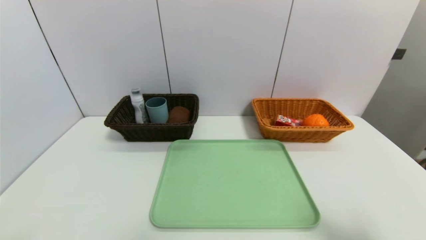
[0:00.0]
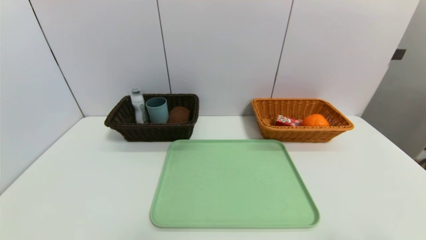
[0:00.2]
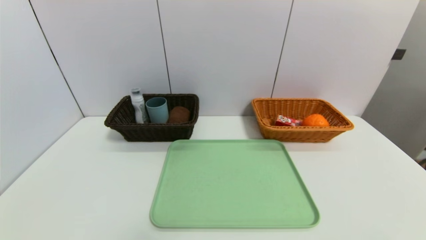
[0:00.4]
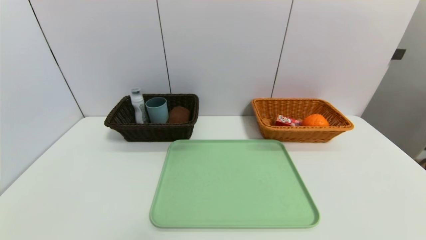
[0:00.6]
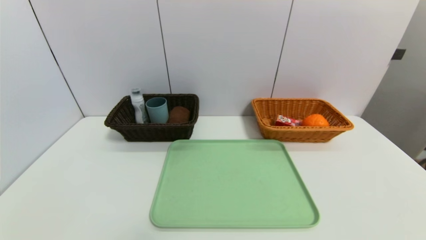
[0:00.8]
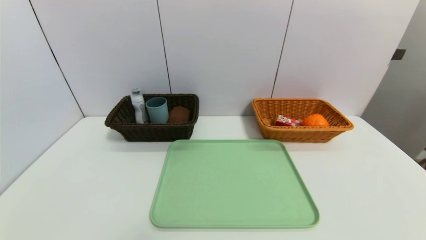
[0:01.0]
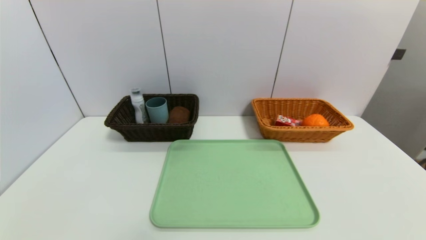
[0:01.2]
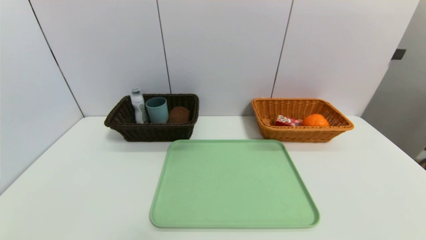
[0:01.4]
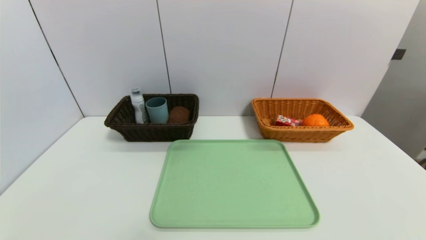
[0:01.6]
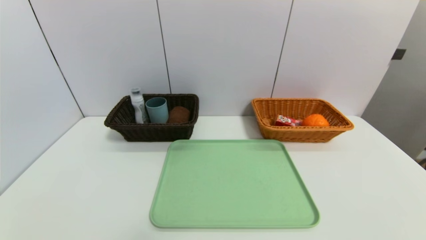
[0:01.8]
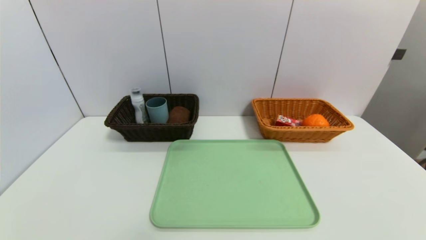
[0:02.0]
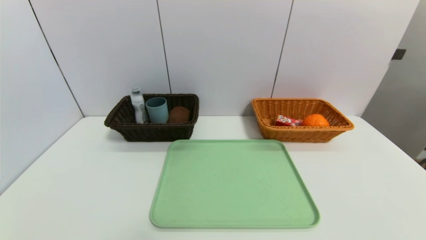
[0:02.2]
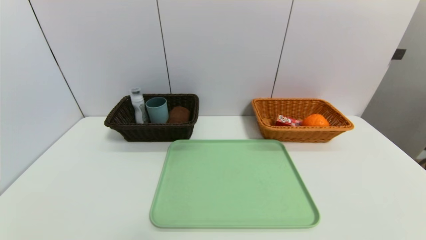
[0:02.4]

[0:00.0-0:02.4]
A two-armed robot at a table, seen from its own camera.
Task of the whole recording: place the food in the right basket with the right gripper, and place the non food items in the left basket with the left gripper.
0:00.0 to 0:01.2: The right gripper moves downward and backward, about 15 cm.
